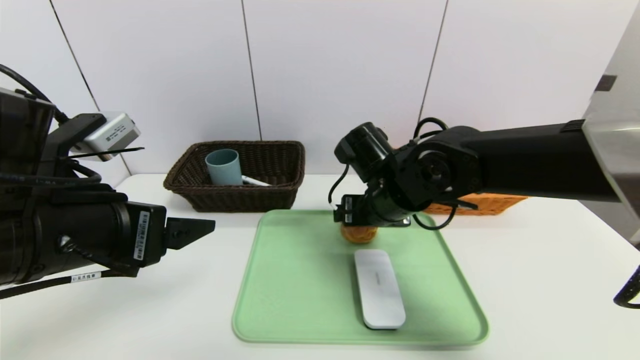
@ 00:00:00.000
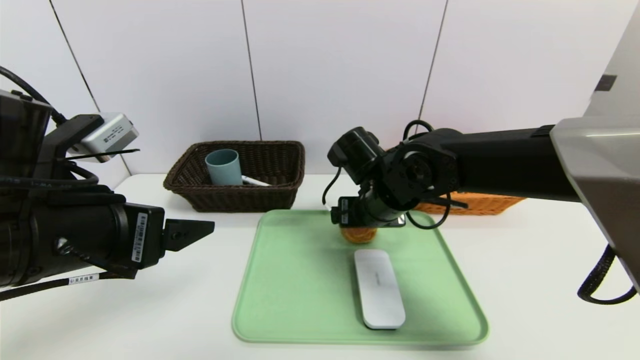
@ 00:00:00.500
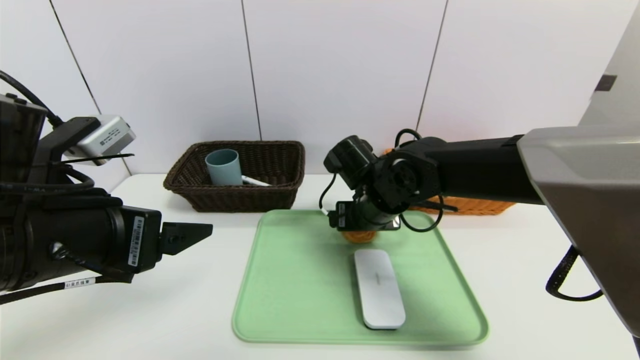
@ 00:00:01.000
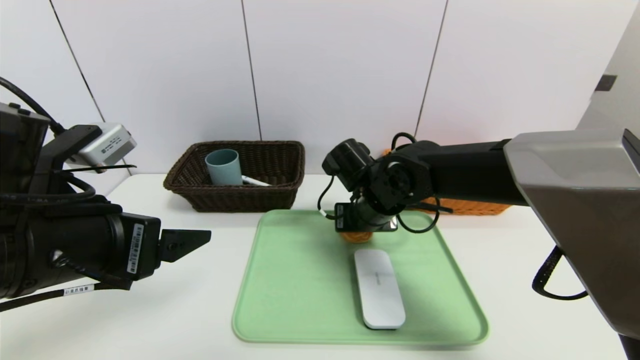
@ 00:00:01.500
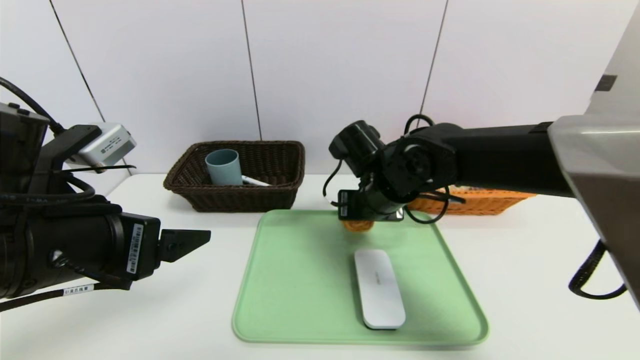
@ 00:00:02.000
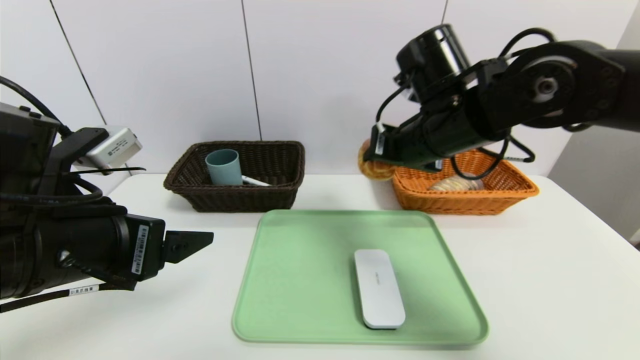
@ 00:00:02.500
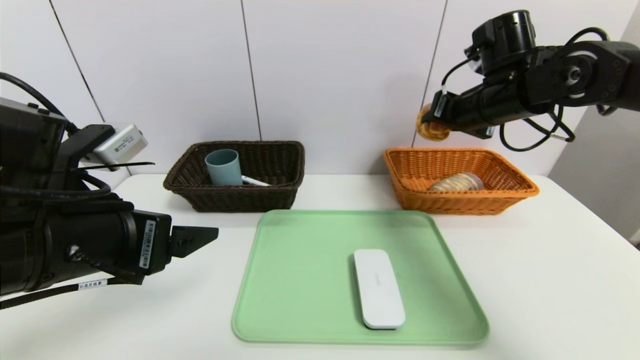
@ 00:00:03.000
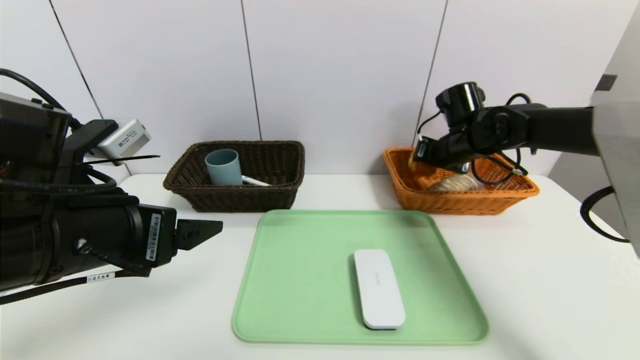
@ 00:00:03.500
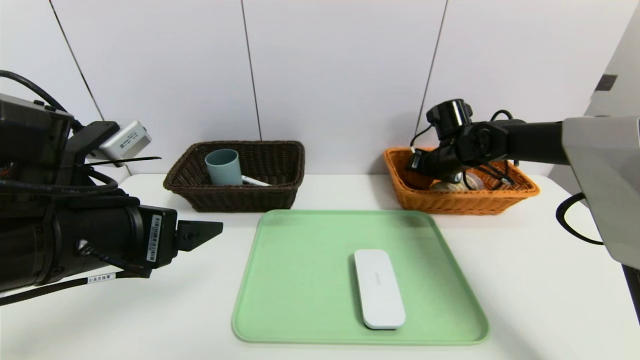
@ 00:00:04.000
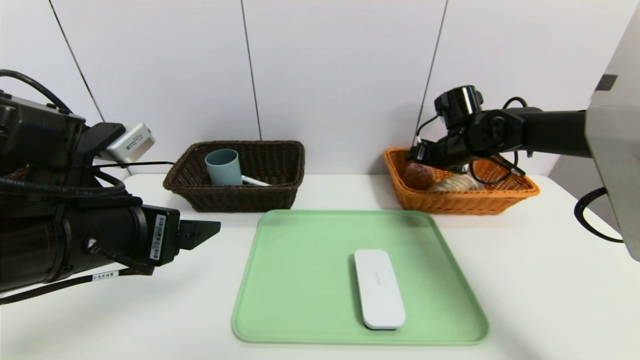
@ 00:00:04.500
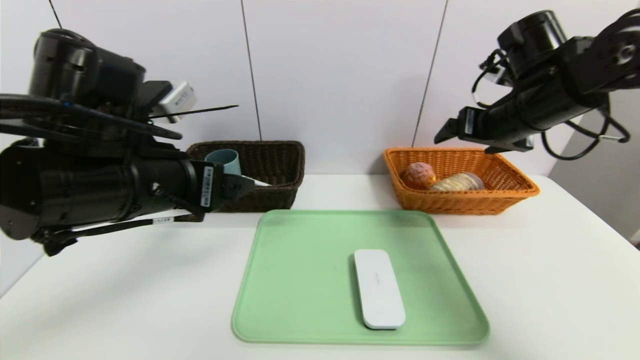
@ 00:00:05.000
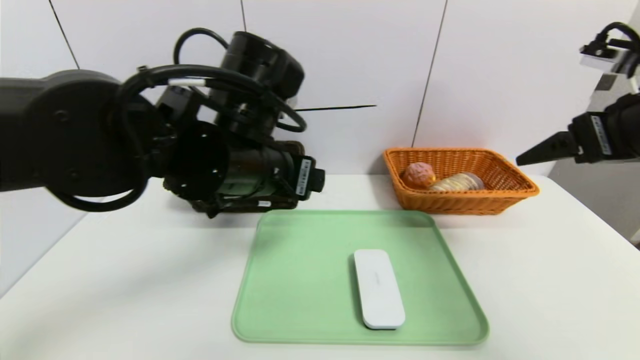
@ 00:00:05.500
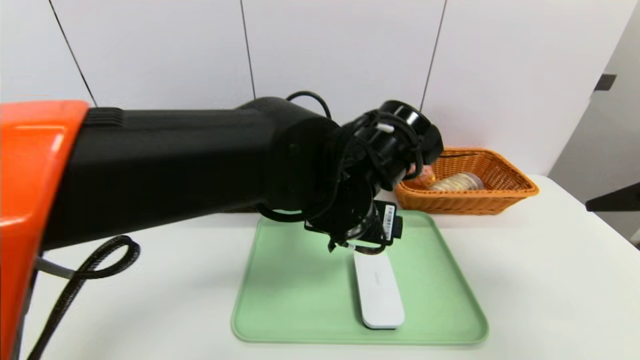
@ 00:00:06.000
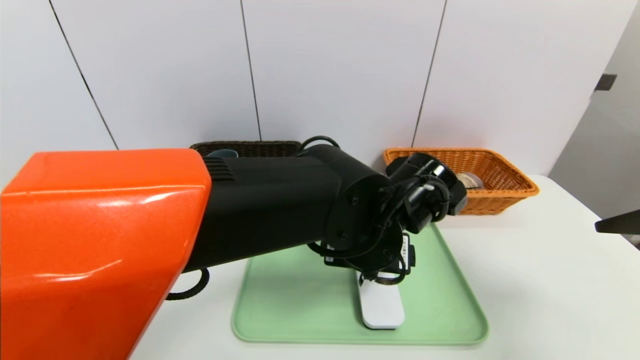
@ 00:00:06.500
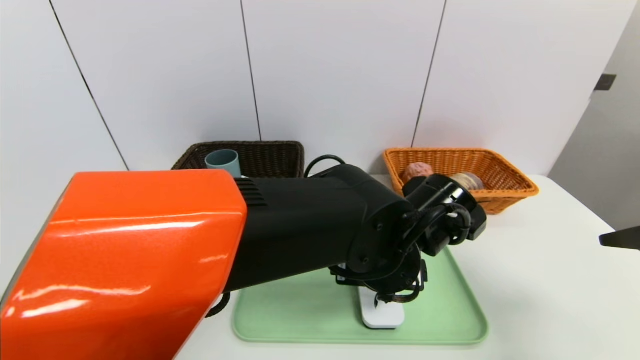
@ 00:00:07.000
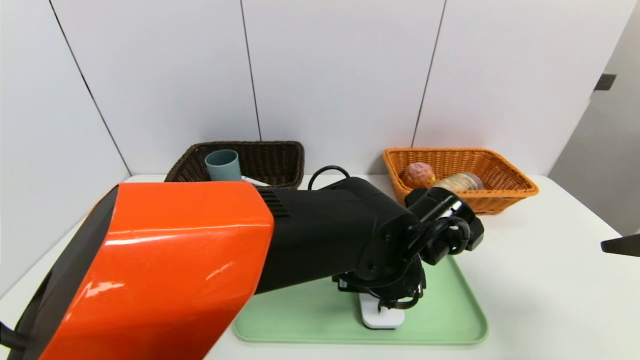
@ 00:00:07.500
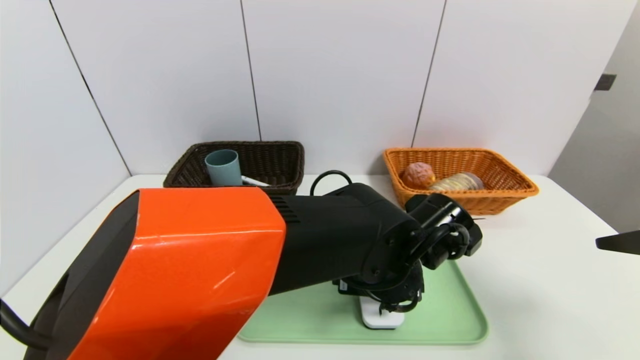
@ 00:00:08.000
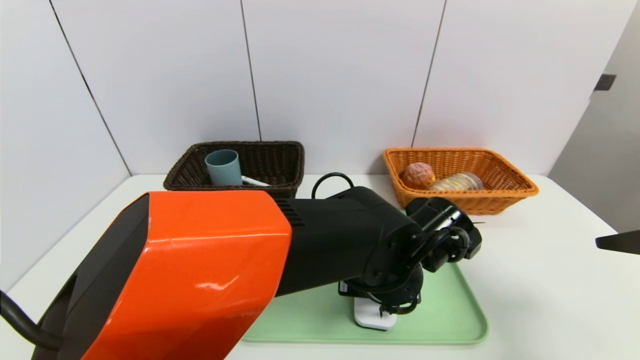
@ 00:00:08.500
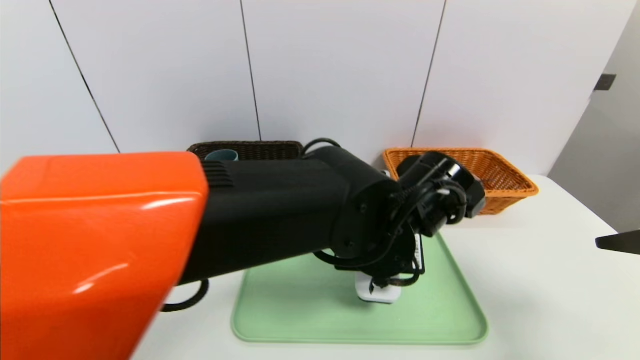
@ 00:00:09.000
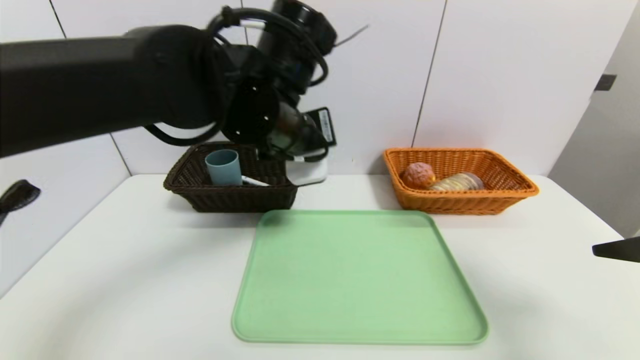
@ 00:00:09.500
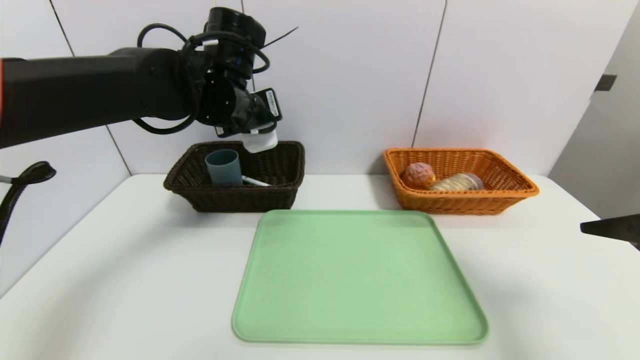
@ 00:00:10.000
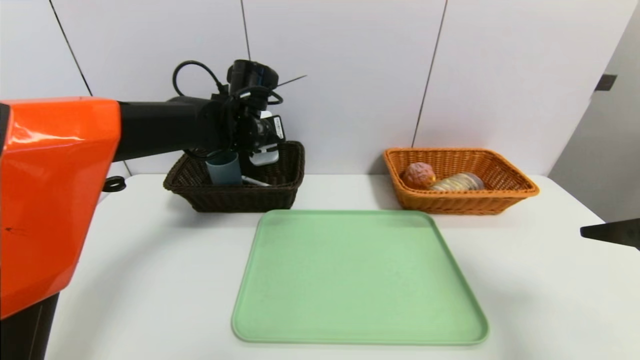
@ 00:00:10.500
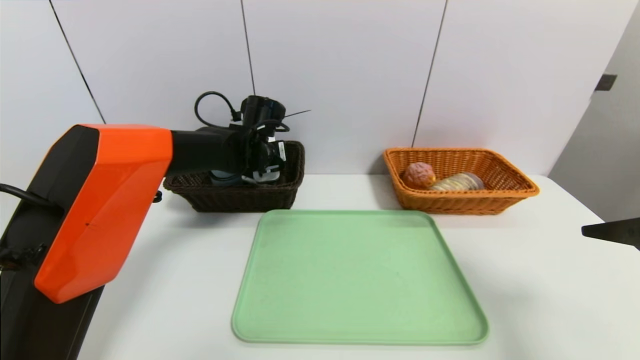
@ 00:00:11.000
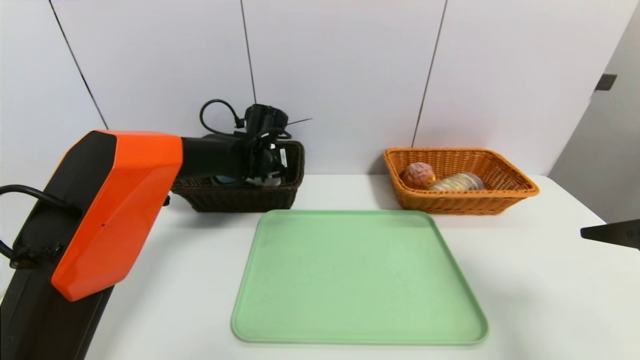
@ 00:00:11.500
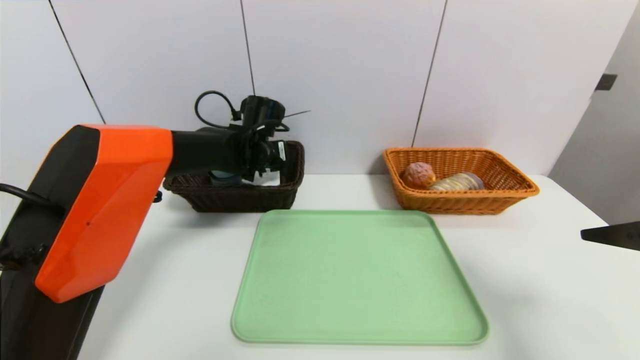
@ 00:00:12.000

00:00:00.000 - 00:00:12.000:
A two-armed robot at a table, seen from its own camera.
Task of the whole recording: place the food in the right basket with the right gripper, and place the non food items in the left basket with the left gripper.
Step, 00:00:00.000 - 00:00:04.500: Grasp the round bread and put it in the right basket.
00:00:00.000 - 00:00:02.000: The right gripper closes its fingers.
00:00:02.000 - 00:00:04.000: The right gripper travels to the right and forward by approximately 20 cm.
00:00:04.000 - 00:00:06.000: The right gripper is displaced backward and upward by roughly 35 cm. Meanwhile the left gripper moves to the right, about 25 cm.
00:00:06.000 - 00:00:08.000: The left gripper is displaced downward and to the right by about 10 cm.
00:00:08.000 - 00:00:10.000: The left gripper travels to the left, upward and forward by approximately 30 cm, and closes its fingers.
00:00:10.000 - 00:00:12.000: The left gripper shifts about 15 cm downward and forward.

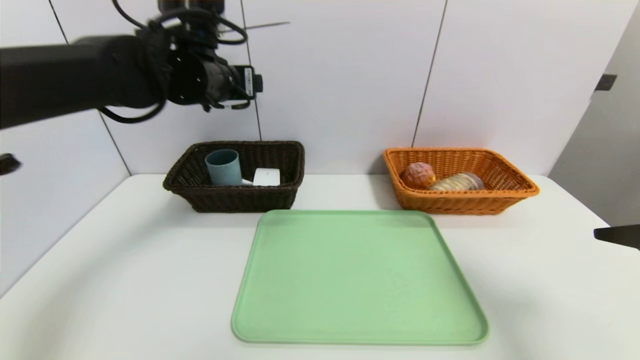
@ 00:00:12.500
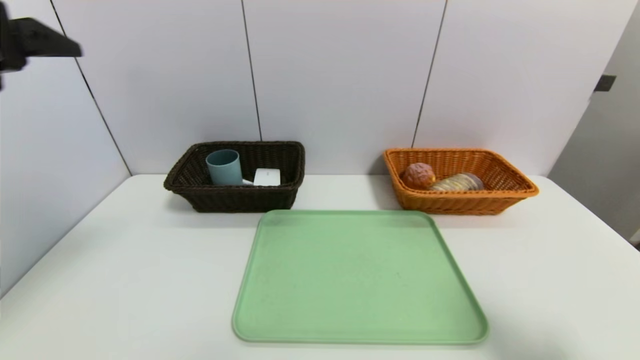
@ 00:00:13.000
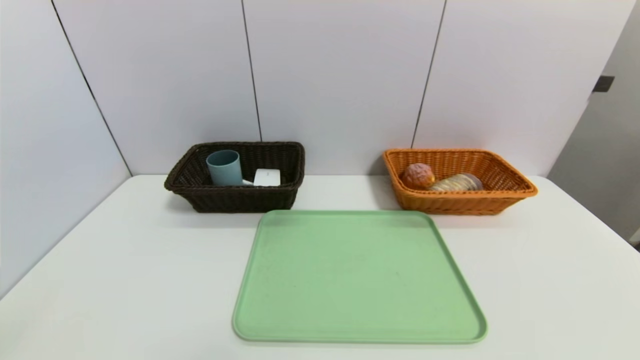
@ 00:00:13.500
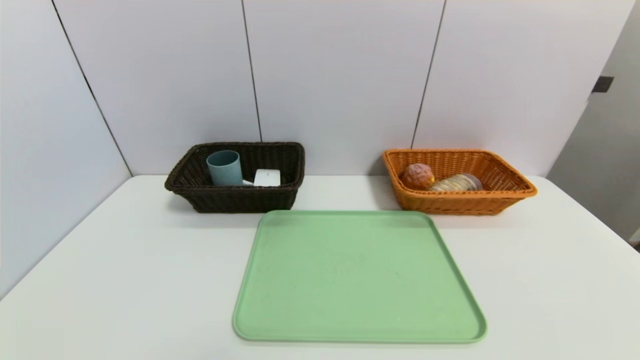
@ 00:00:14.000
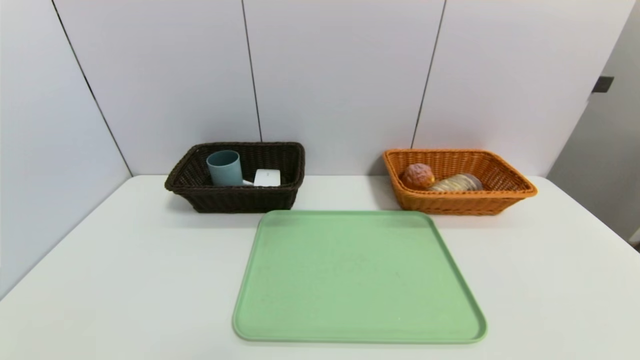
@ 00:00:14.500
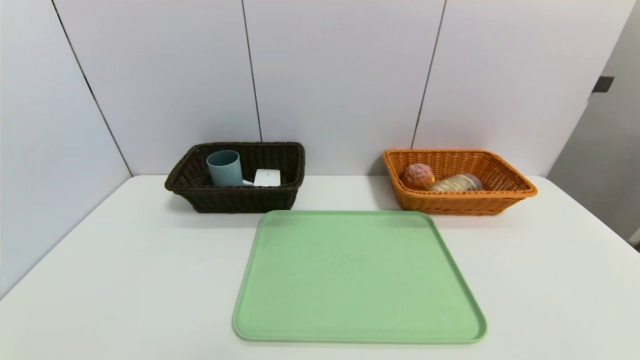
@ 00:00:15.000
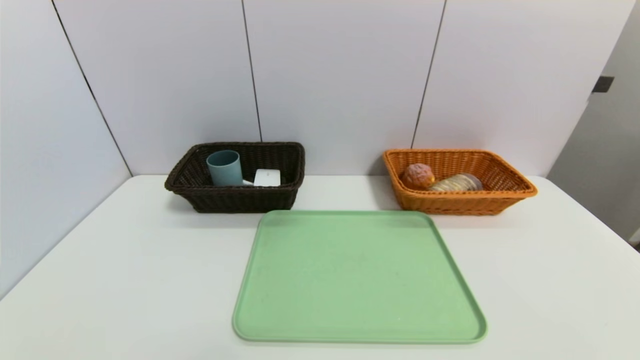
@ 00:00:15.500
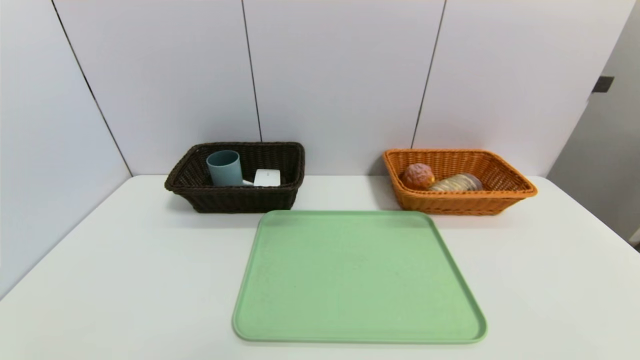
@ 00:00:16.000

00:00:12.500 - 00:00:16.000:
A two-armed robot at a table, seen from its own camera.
Task of the whole recording: place the food in the right basket with the right gripper, and place the non food items in the left basket with the left gripper.
00:00:12.500 - 00:00:14.500: The right gripper is displaced backward and downward by some 20 cm. Meanwhile the left gripper shifts about 50 cm backward and downward.
